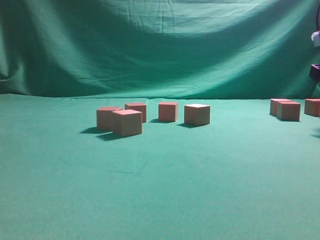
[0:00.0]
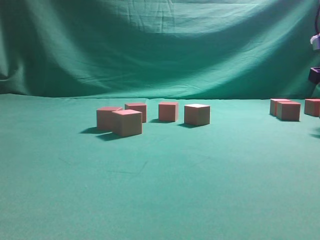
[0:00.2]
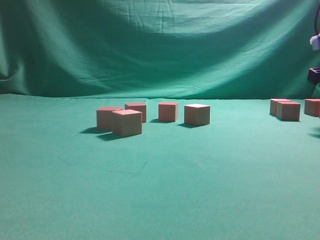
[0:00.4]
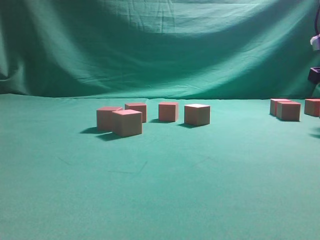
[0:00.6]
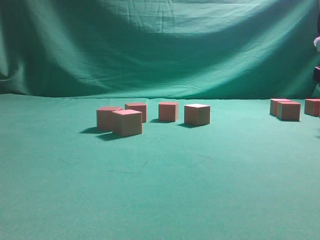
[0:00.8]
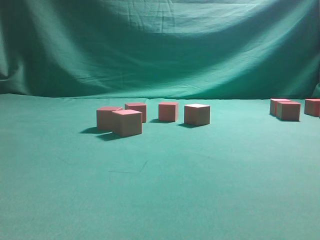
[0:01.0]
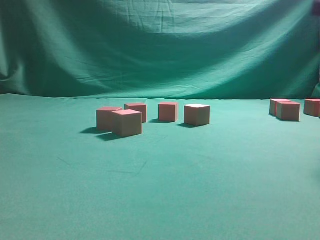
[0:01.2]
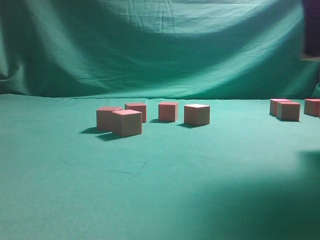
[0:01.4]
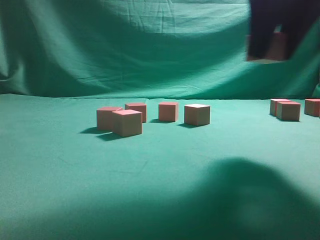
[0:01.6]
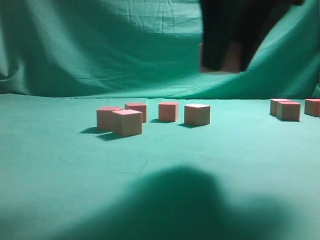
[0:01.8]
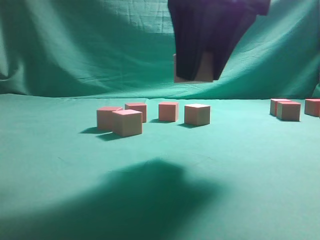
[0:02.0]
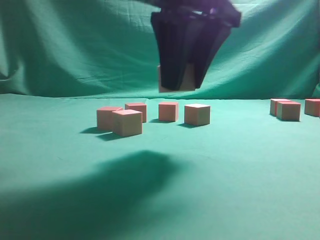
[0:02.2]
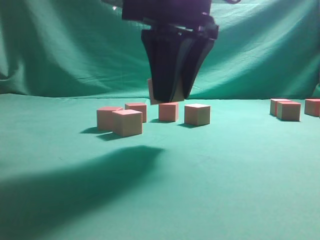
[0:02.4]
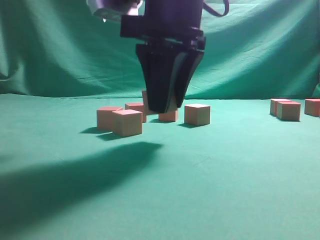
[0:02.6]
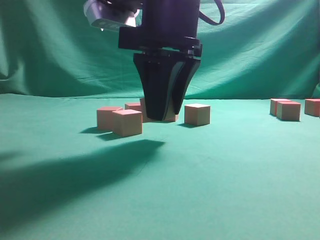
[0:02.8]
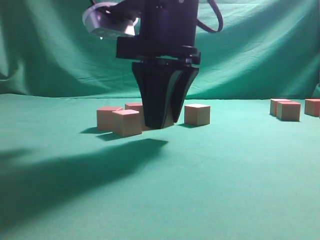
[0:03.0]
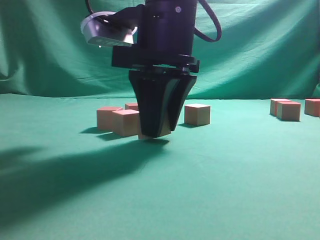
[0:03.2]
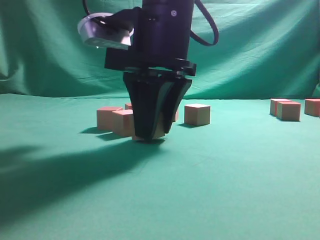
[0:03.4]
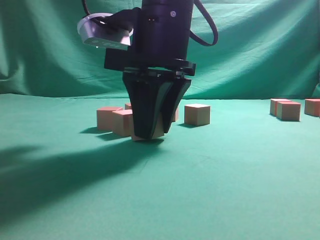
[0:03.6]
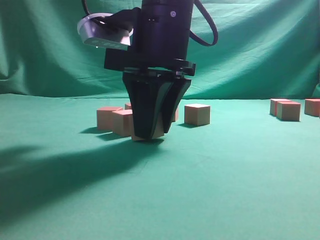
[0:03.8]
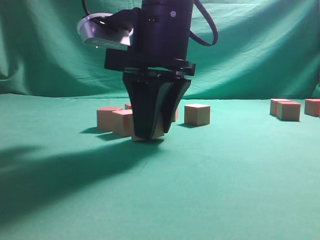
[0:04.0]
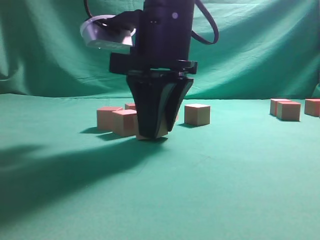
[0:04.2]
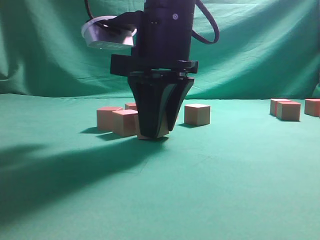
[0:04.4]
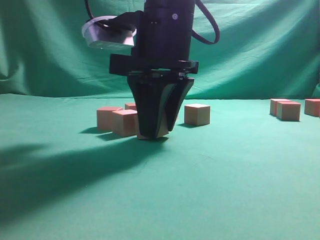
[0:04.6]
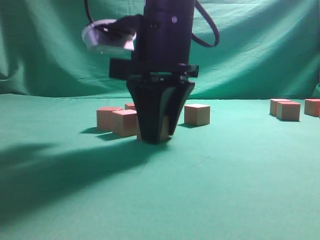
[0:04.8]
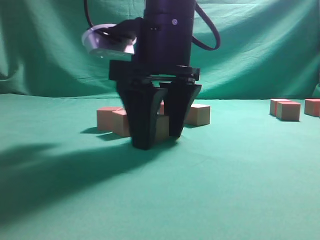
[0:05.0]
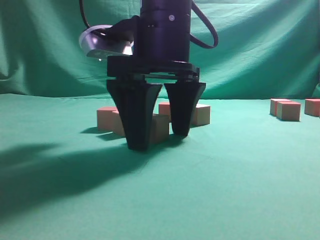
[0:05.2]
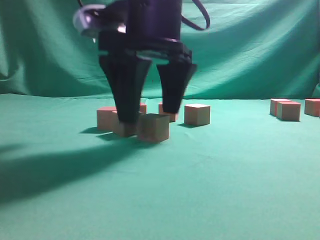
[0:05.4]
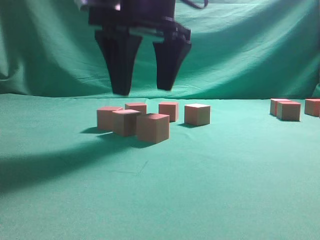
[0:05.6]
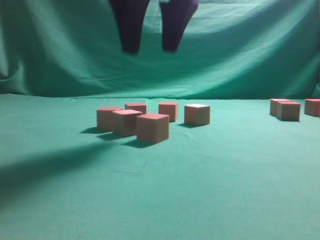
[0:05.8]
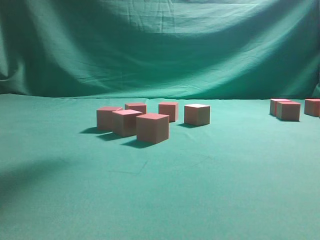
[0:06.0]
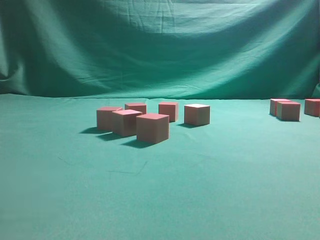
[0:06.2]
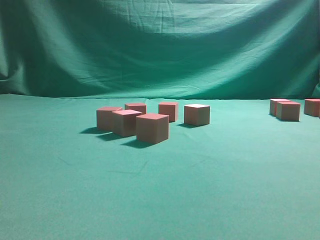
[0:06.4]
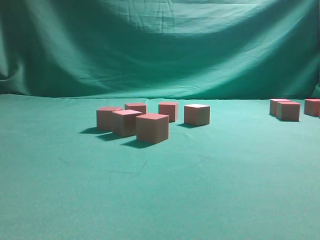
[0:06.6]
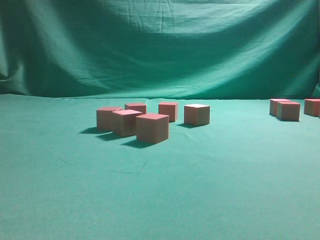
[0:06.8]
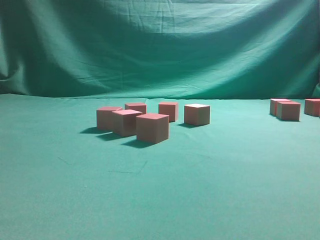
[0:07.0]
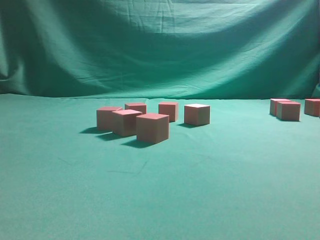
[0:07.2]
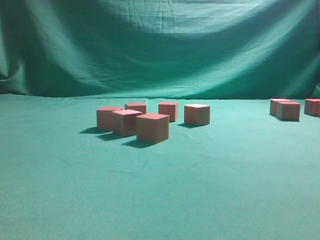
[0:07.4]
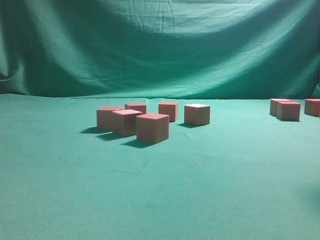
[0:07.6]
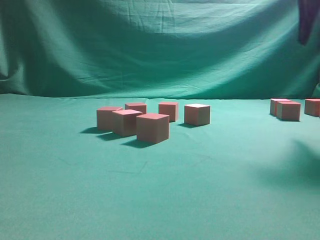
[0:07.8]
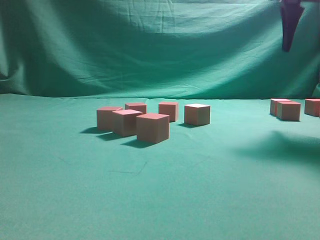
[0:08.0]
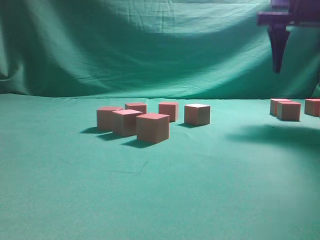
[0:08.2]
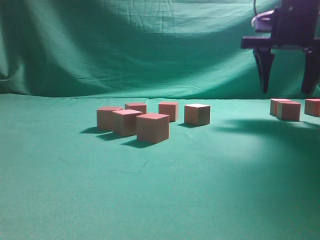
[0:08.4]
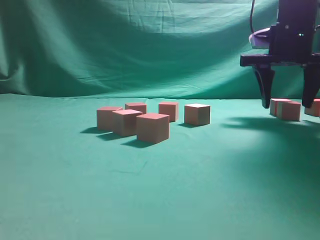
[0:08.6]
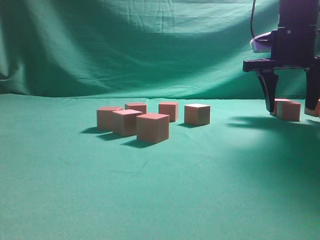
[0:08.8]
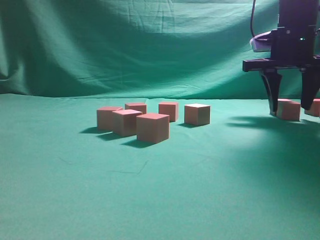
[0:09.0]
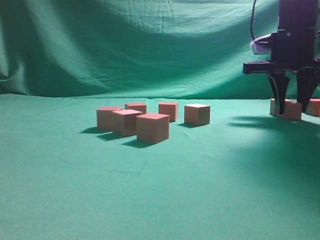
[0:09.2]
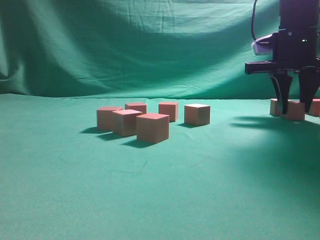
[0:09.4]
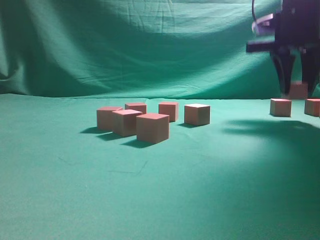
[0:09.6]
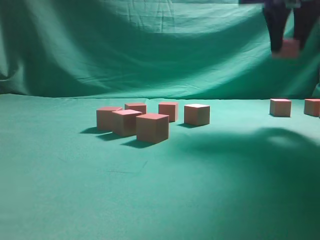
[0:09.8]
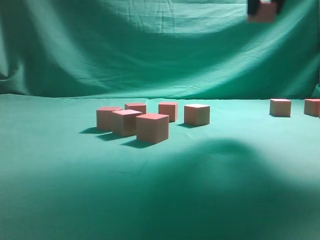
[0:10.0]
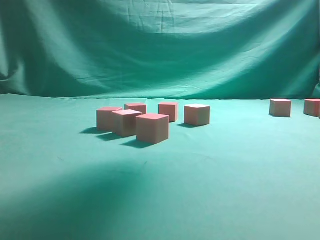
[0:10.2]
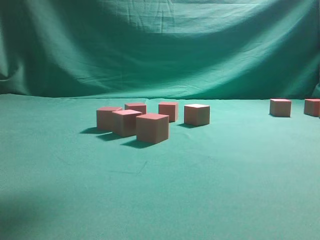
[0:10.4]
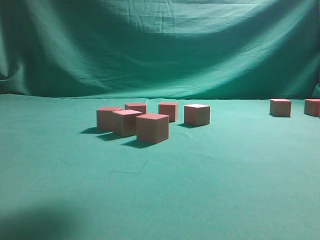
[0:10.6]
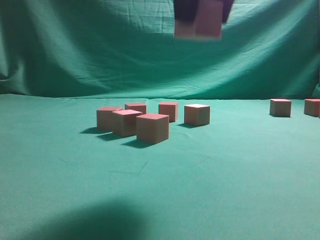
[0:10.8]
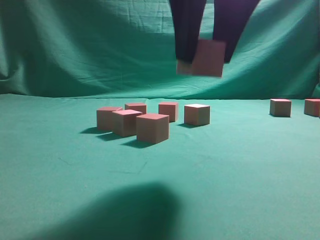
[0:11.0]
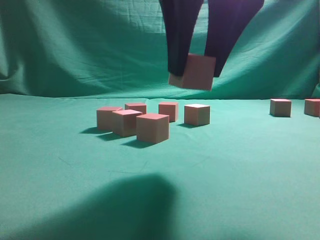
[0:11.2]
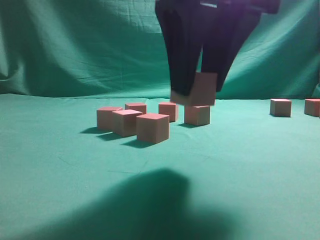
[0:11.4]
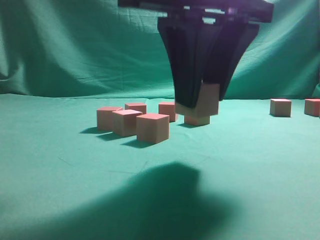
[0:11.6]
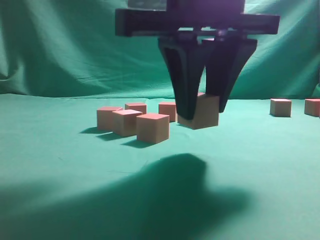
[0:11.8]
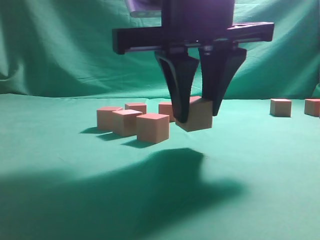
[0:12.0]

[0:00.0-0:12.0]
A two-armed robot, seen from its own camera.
Task of the whole recording: pick up the multiple cubes in two columns one by one and place them in another position on the table.
Step, 1.4 to 5.6 s: Place the block at the correct position to assemble the letter S.
Step, 5.8 to 9.4 s: Pick up the block on the table.
0.0 to 1.6 s: The right gripper shifts approximately 20 cm to the left, backward and upward, and closes its fingers.
1.6 to 3.0 s: The right gripper moves to the left and downward, approximately 15 cm.
3.0 to 4.4 s: The grippers make only small movements.
4.4 to 6.0 s: The right gripper shifts some 15 cm upward, and opens its fingers.
7.6 to 9.0 s: The right gripper heads forward and downward, covering roughly 15 cm.
9.0 to 10.4 s: The right gripper moves upward, backward and to the left, approximately 30 cm.
10.4 to 12.0 s: The right gripper goes some 15 cm downward.

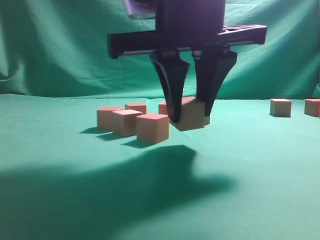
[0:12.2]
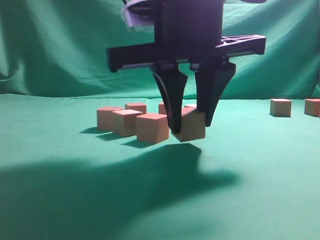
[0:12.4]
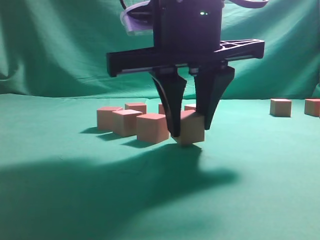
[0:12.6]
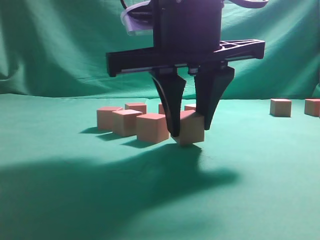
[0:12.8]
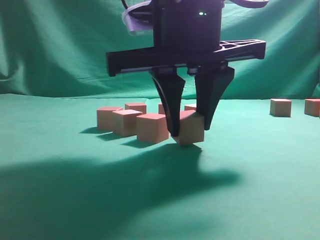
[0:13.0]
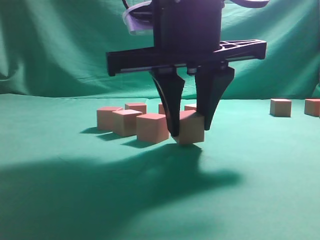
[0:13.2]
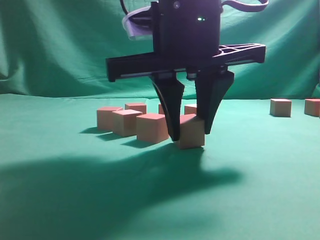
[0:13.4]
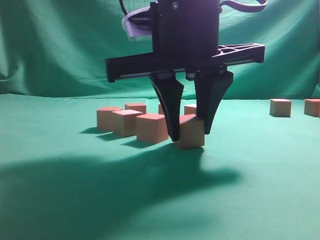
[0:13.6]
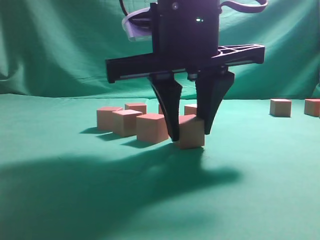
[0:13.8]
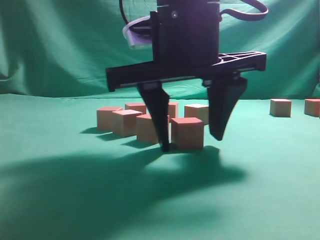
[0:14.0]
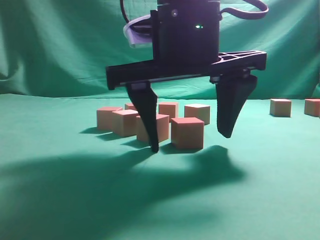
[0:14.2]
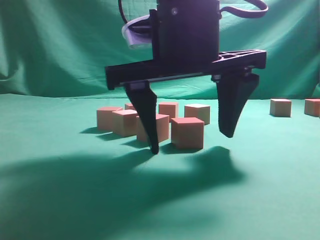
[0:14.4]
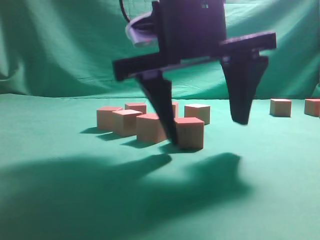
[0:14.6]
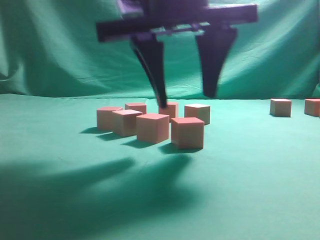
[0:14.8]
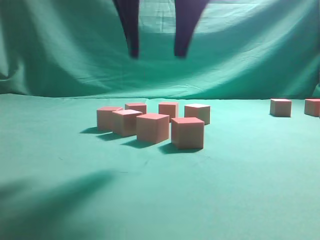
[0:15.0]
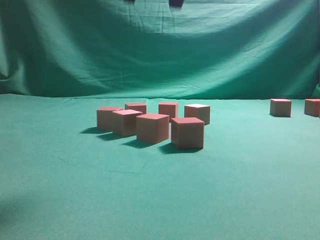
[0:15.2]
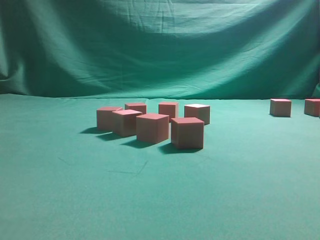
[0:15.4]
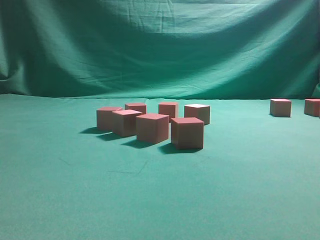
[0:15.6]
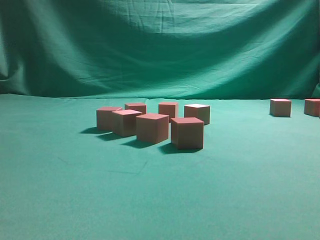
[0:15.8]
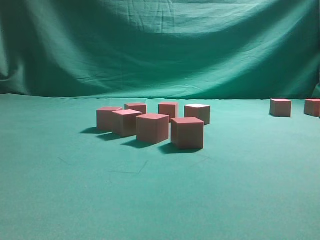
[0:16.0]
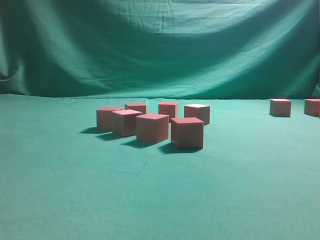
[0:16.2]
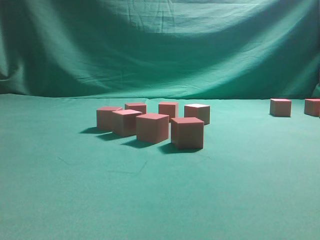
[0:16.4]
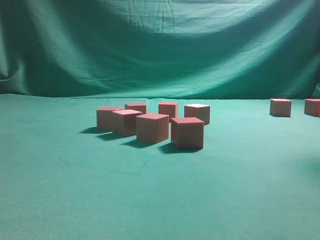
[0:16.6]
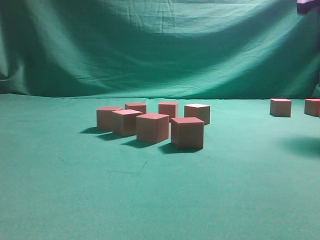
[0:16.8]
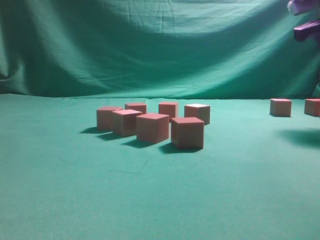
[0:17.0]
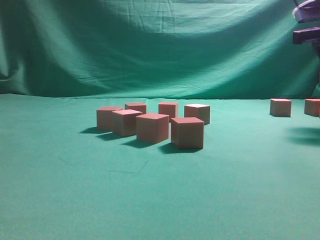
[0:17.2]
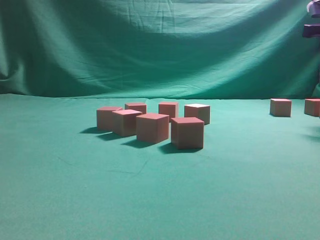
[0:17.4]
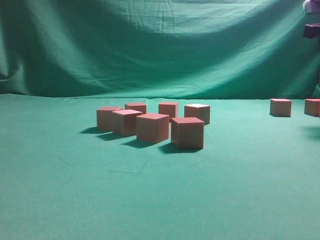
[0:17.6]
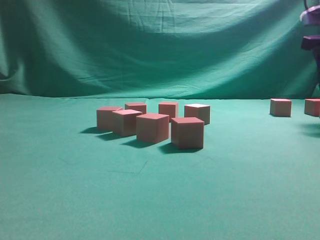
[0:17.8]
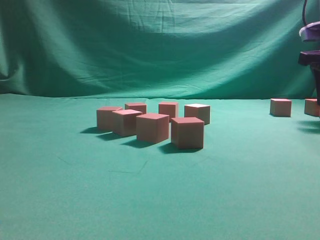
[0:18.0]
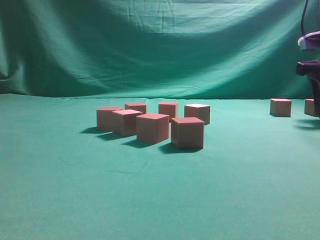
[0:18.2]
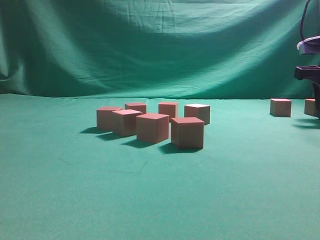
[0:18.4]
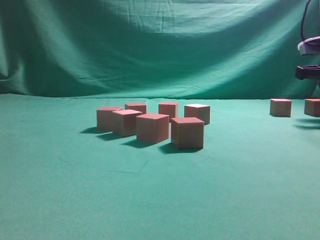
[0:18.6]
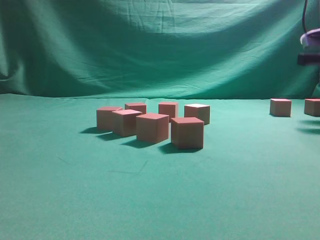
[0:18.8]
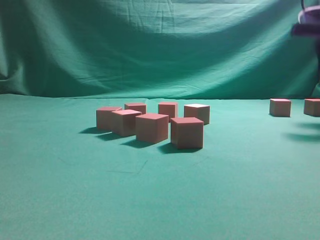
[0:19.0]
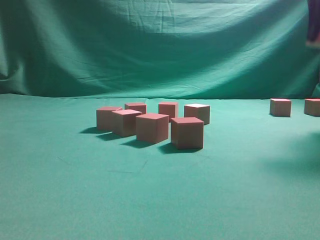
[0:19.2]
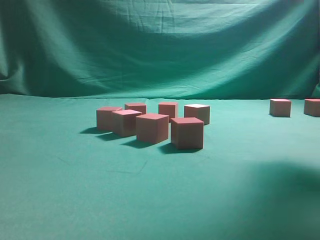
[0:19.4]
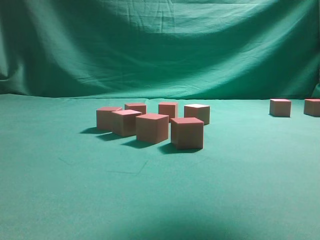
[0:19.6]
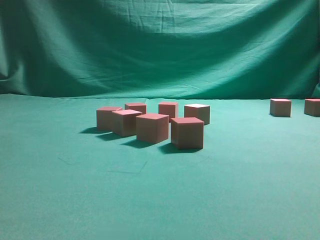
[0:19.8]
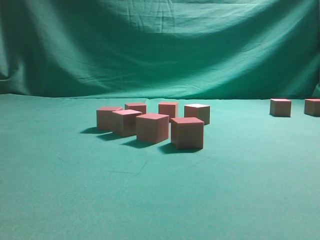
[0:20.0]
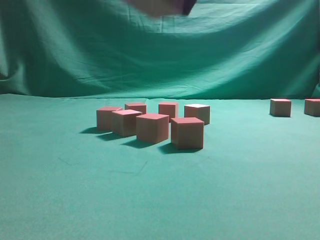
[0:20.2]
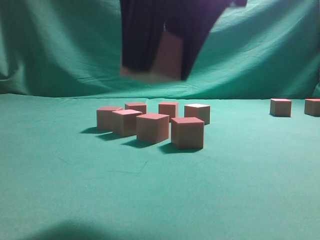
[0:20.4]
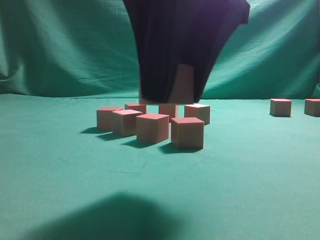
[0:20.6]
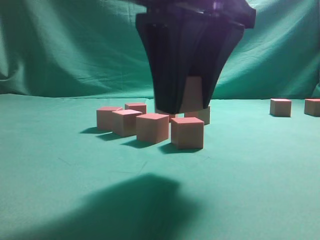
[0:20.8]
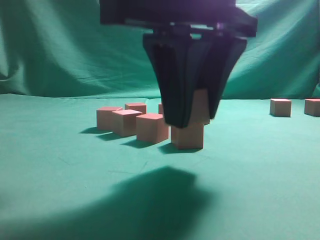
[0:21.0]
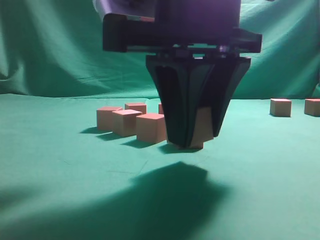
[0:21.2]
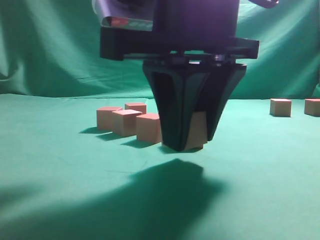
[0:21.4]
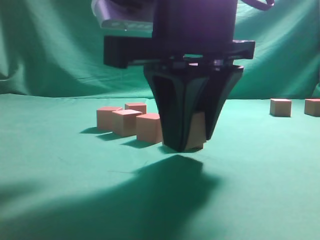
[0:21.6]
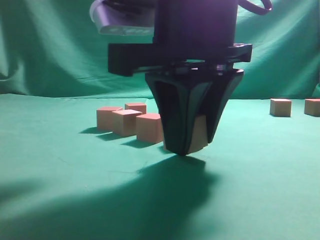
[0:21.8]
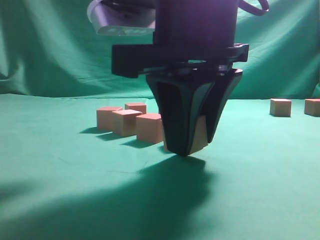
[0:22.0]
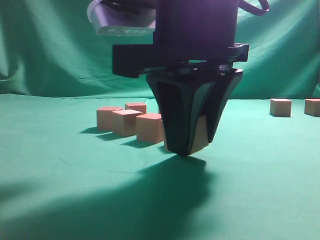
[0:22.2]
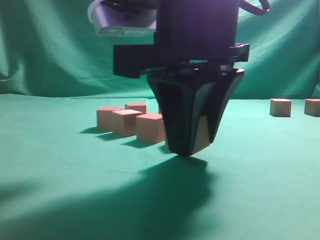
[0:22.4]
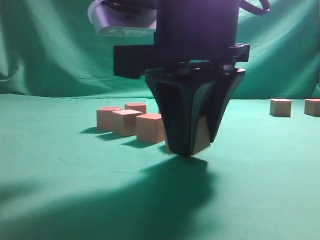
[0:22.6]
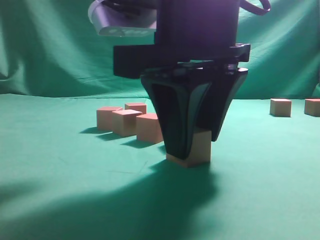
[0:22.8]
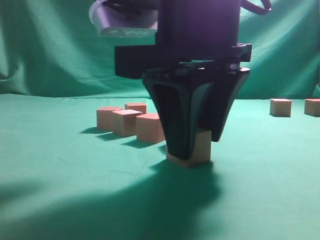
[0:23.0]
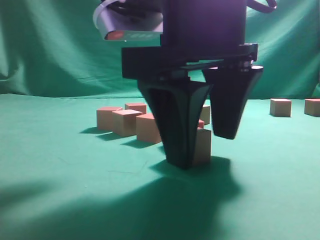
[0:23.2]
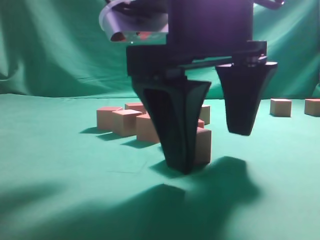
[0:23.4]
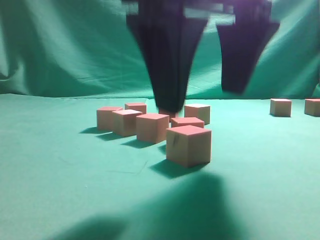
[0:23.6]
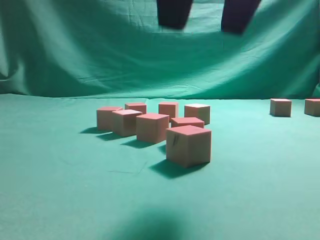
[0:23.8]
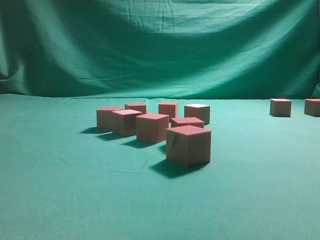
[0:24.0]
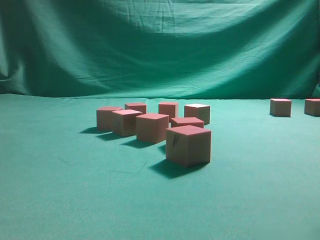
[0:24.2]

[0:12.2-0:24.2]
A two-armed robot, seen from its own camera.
Task of the whole recording: pick up the multiple cubes in two columns one by one and place them in another position on the table.
Step, 12.2 to 14.8 s: Place the block at the correct position to assemble the letter S.
Step, 15.0 to 18.8 s: Pick up the block on the table.
Step, 19.0 to 23.4 s: Place the block at the correct position to assemble the letter S.
12.2 to 13.8 s: The grippers make only small movements.
13.8 to 15.2 s: The right gripper heads upward, covering roughly 15 cm.
15.2 to 16.6 s: The right gripper goes some 25 cm to the right.
16.6 to 18.2 s: The right gripper shifts approximately 15 cm downward and forward.
18.2 to 19.8 s: The right gripper heads to the left, backward and upward, covering approximately 30 cm.
19.8 to 21.2 s: The right gripper is displaced downward and to the left by approximately 15 cm.
21.2 to 22.6 s: There are only small adjustments of the grippers.
22.6 to 24.2 s: The right gripper travels upward and to the right by roughly 15 cm, and opens up.
